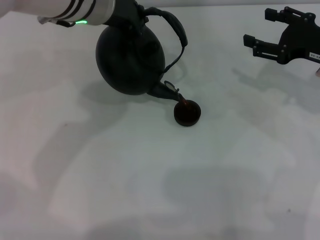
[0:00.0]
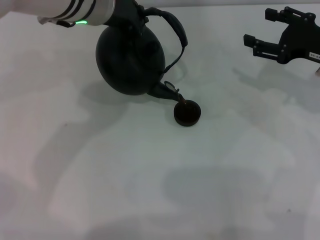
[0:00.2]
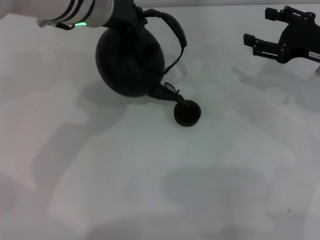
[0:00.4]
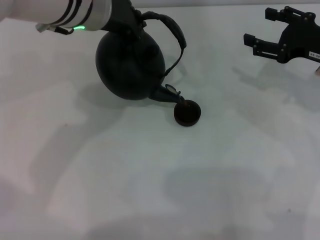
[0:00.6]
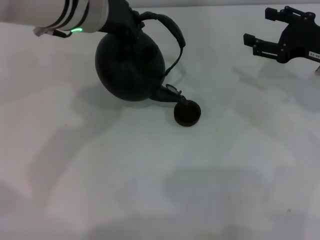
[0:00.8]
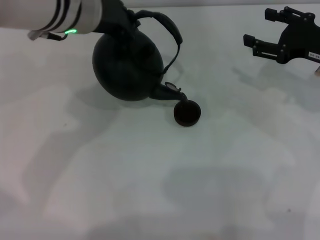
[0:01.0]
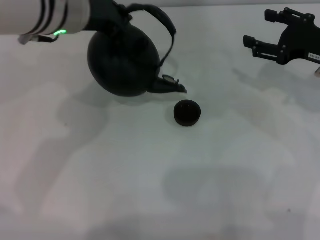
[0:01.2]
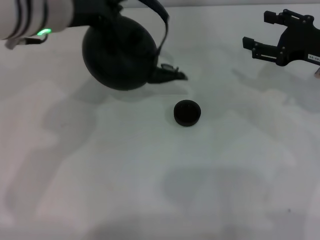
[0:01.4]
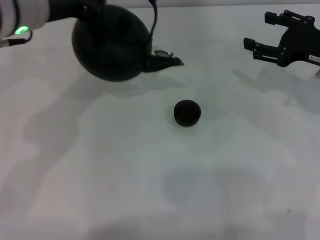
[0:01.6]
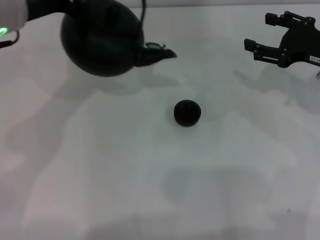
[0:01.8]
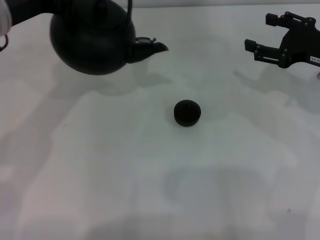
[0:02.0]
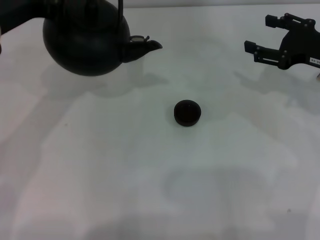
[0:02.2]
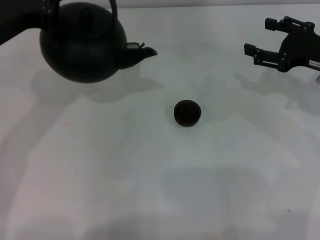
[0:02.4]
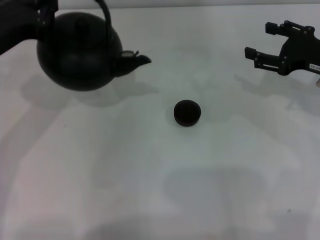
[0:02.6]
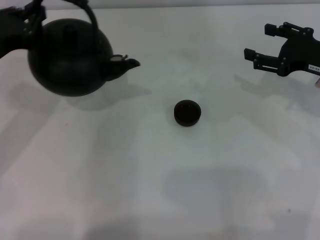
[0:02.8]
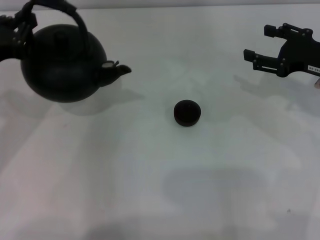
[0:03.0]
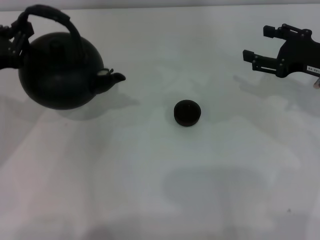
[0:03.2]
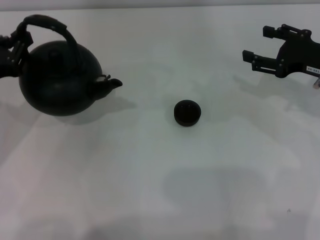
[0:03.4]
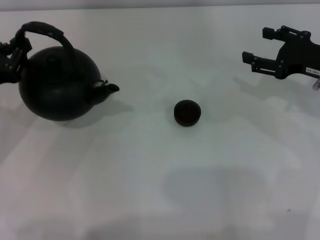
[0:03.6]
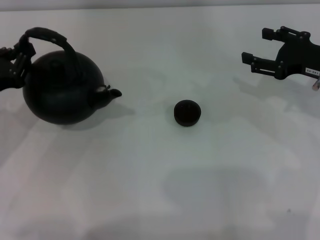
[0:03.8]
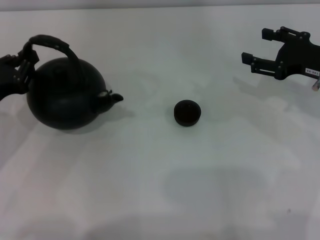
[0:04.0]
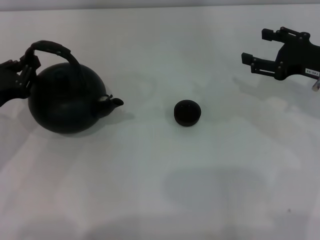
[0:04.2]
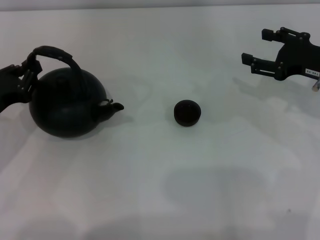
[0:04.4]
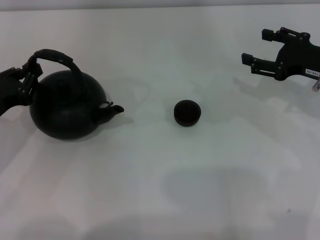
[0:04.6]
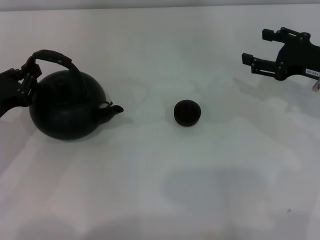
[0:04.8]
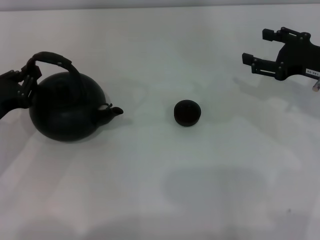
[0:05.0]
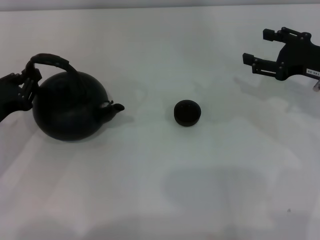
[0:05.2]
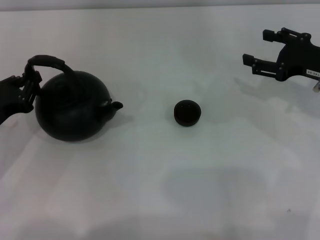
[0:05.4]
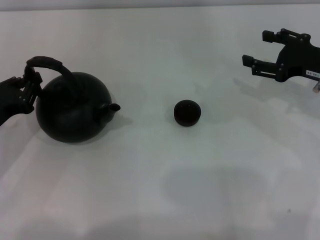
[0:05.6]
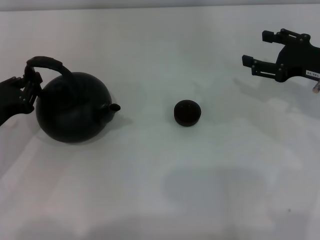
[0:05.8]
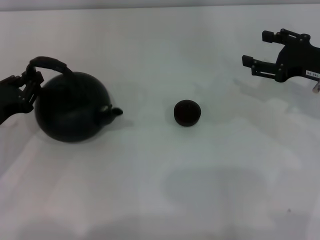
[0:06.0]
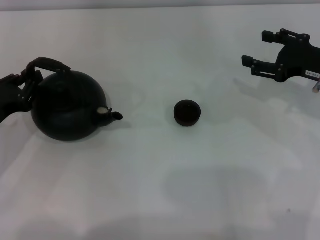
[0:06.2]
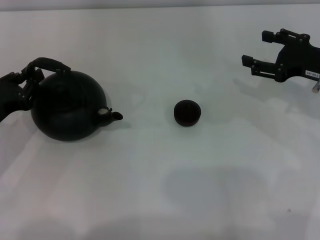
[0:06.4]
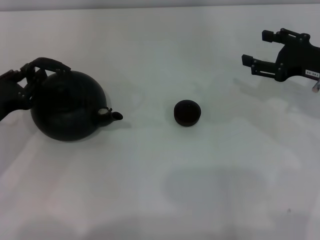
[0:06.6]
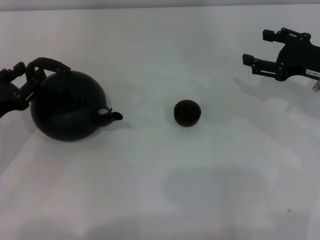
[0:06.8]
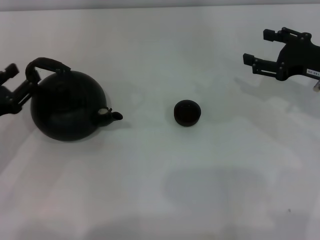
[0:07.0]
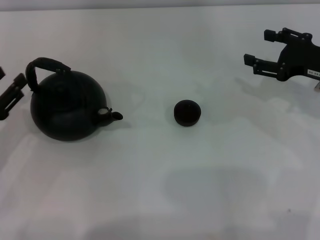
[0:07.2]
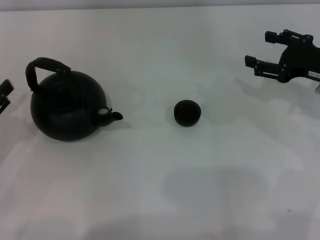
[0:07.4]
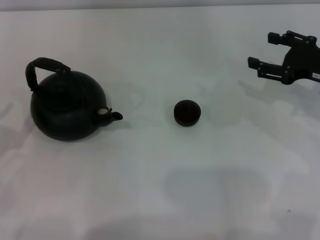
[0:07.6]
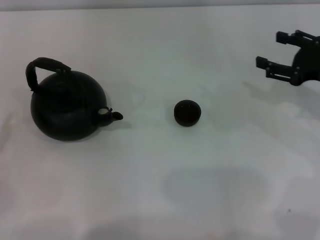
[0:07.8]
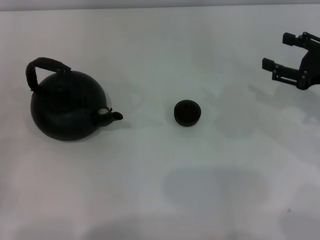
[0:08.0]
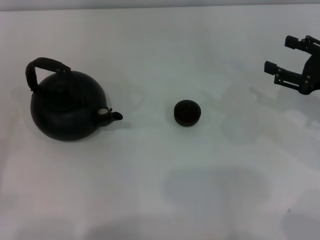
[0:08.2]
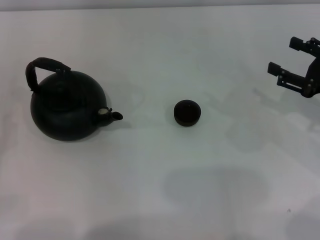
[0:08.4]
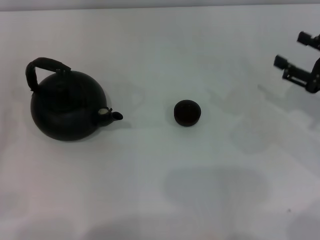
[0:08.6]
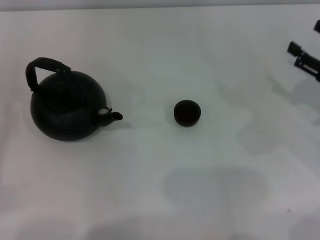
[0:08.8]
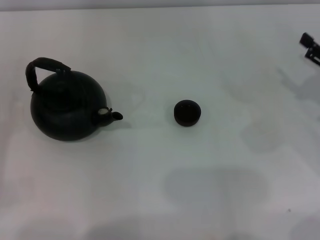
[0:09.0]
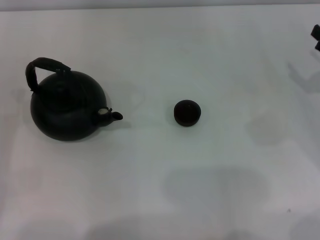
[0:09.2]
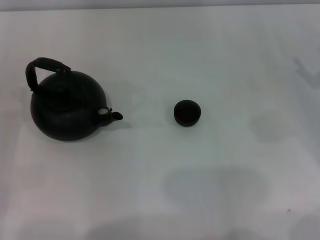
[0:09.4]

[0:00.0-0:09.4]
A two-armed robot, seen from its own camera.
Task of the whole recording: Grasp the handle of the teapot with one hand and pour tea into the teacup.
Step, 0:01.6 to 0:07.0: Put down the teapot with the left gripper.
0:00.0 to 0:01.6: The left gripper goes some 10 cm to the left.
0:01.6 to 0:03.2: The left gripper moves to the left, downward and backward, approximately 15 cm.
0:03.2 to 0:04.8: The left gripper moves downward, some 5 cm.
0:04.8 to 0:06.2: The two grippers keep their place.
0:06.2 to 0:07.8: The left gripper travels backward and to the left by roughly 10 cm, and opens its fingers.
0:07.8 to 0:09.4: The right gripper moves approximately 5 cm.
